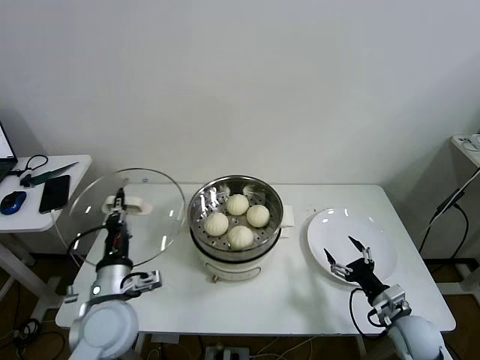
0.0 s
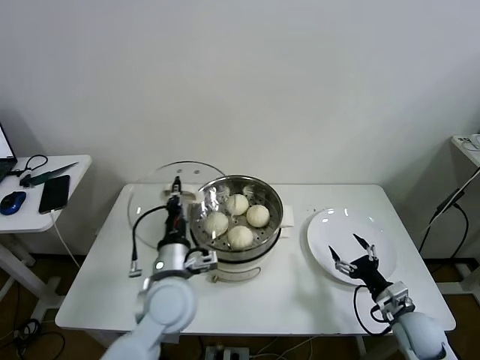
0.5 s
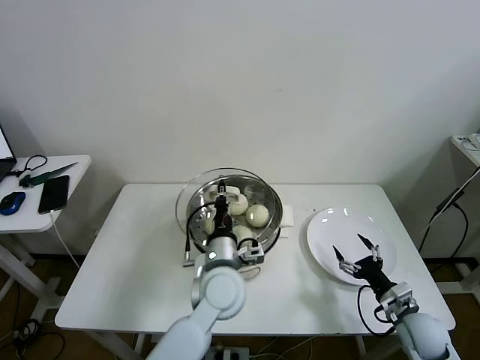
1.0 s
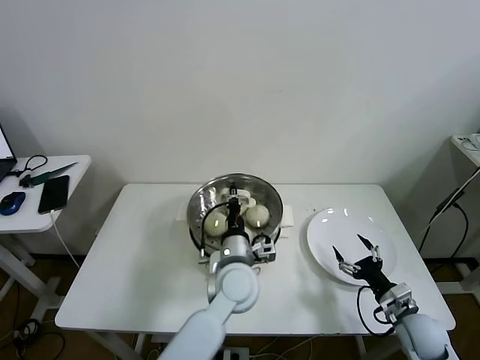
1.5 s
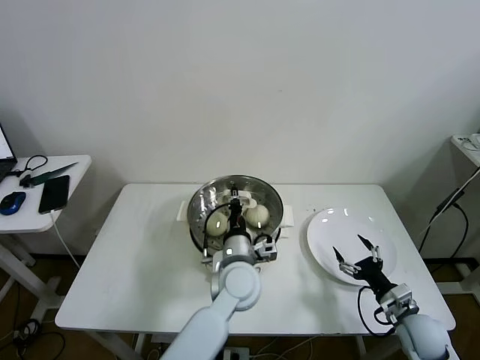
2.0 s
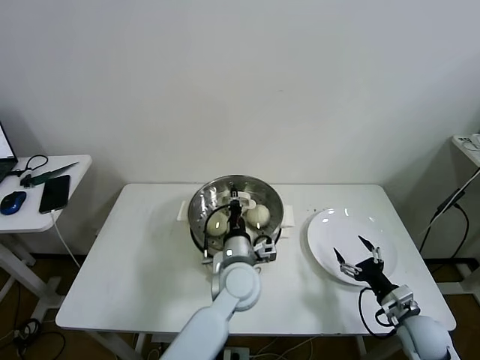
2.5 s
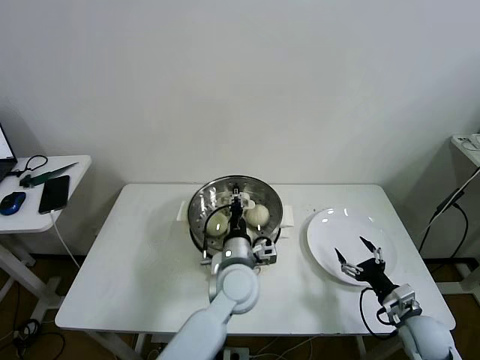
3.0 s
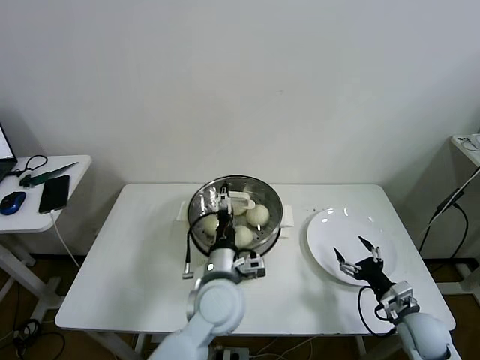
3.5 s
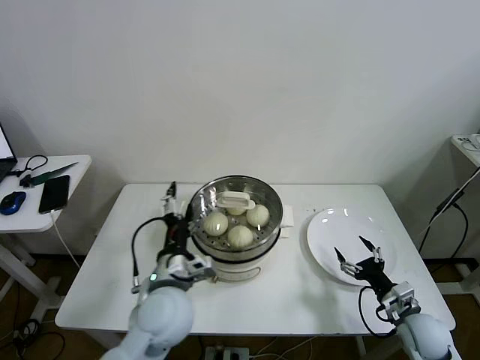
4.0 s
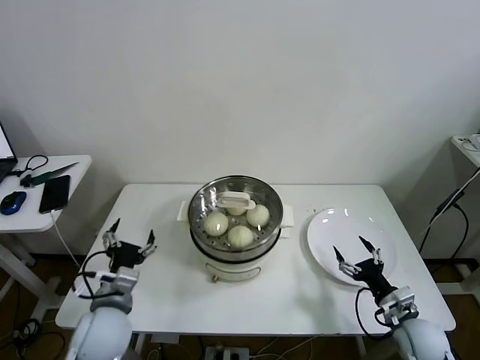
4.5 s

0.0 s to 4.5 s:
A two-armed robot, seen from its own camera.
Task of the whole recording: take steamed baozi put them in steamer then cover it.
Step, 0.0 to 3.0 s: Place the pot lid on the steamer with left gripper.
0.0 to 2.0 s: The left gripper moves to the right, roughly 25 cm.
2.0 to 4.5 s: The left gripper shifts some 25 cm to the left, and opens up.

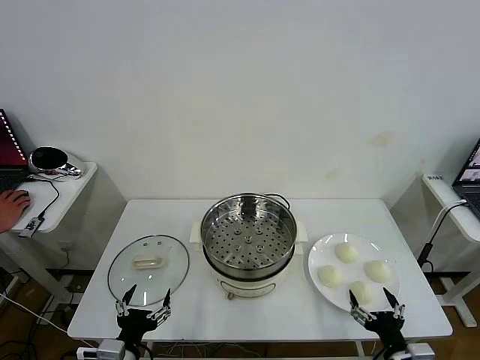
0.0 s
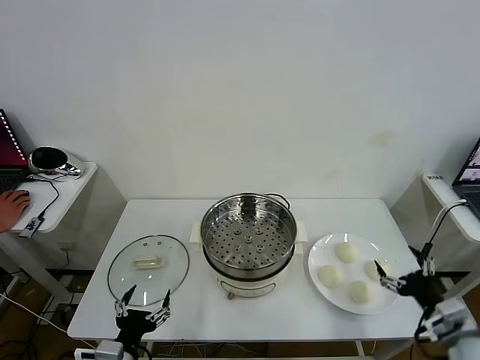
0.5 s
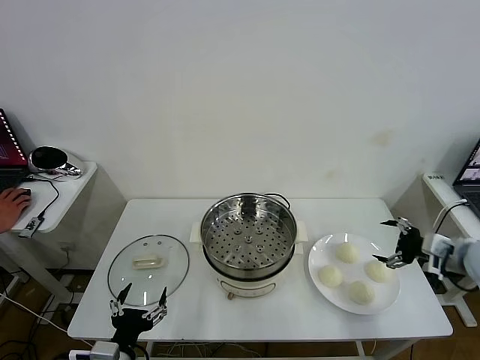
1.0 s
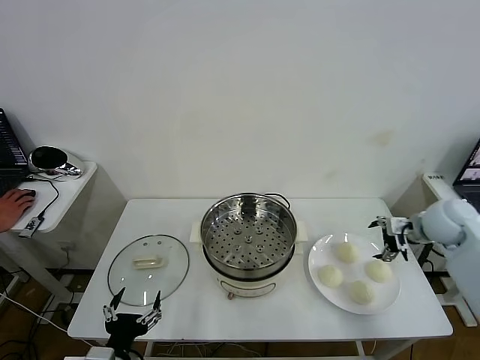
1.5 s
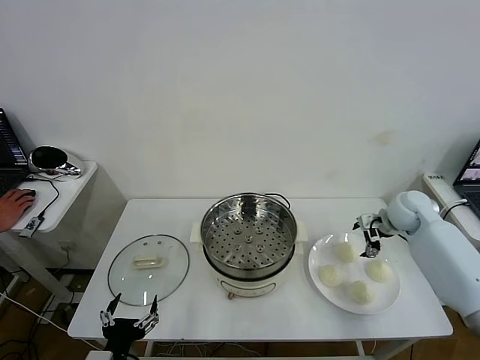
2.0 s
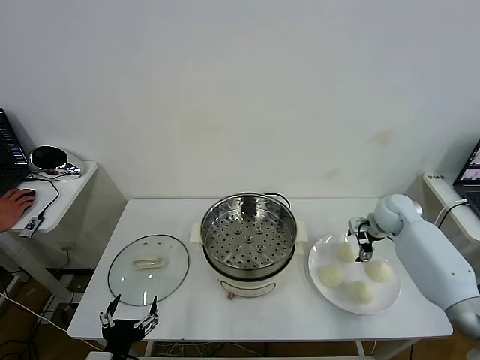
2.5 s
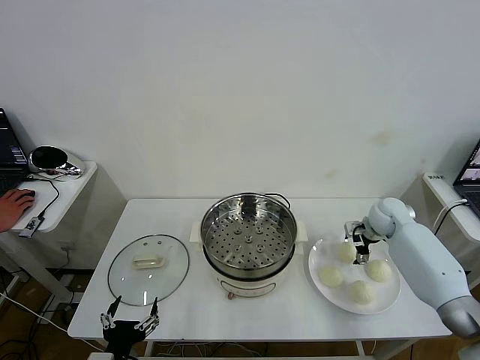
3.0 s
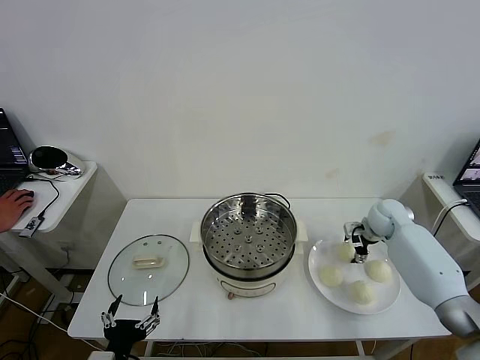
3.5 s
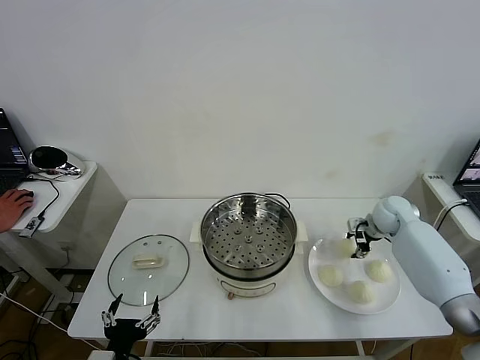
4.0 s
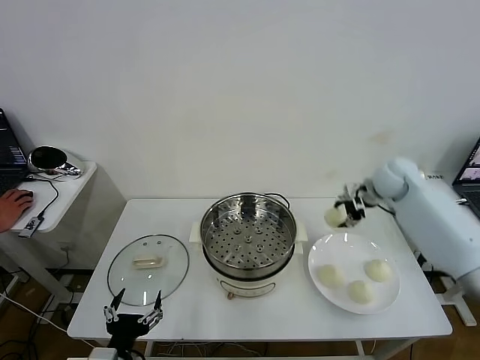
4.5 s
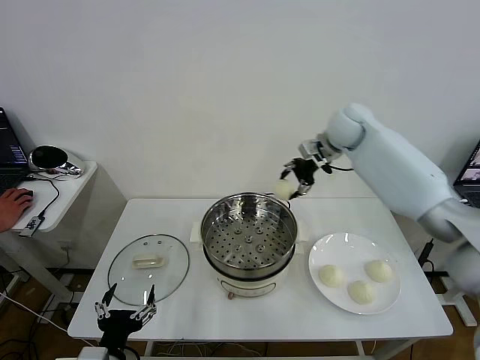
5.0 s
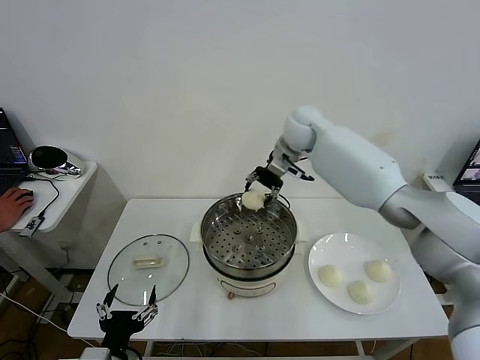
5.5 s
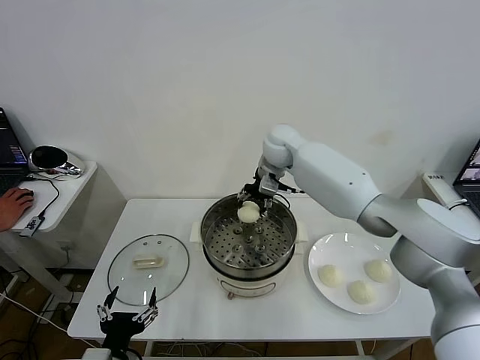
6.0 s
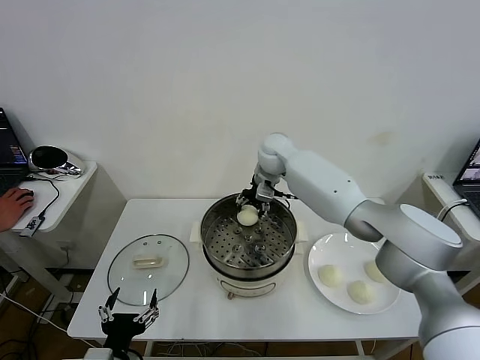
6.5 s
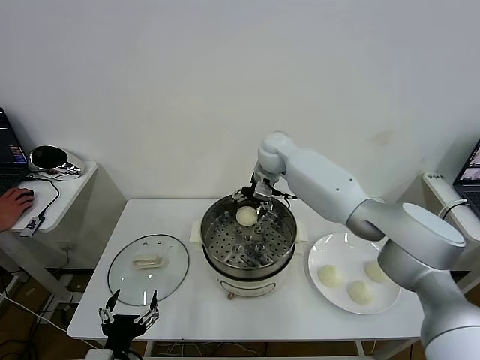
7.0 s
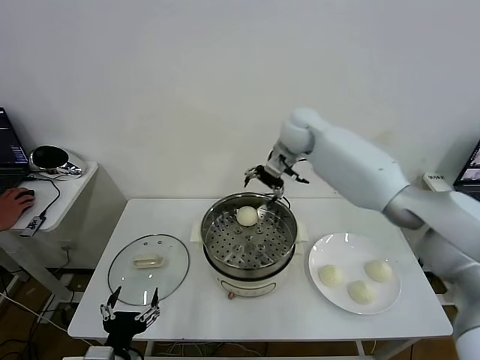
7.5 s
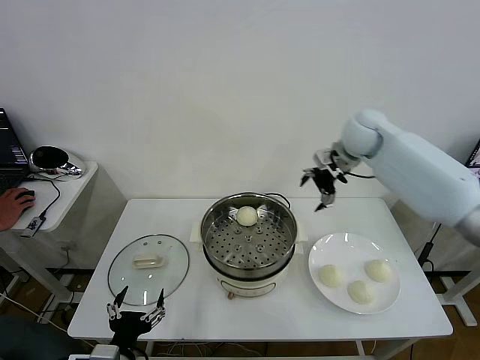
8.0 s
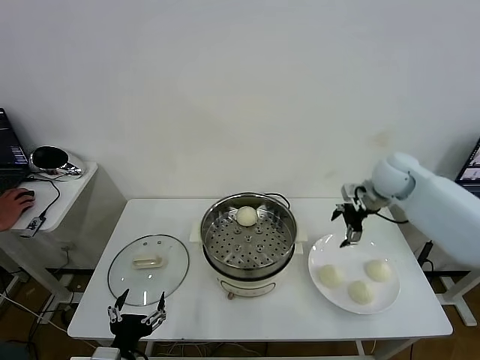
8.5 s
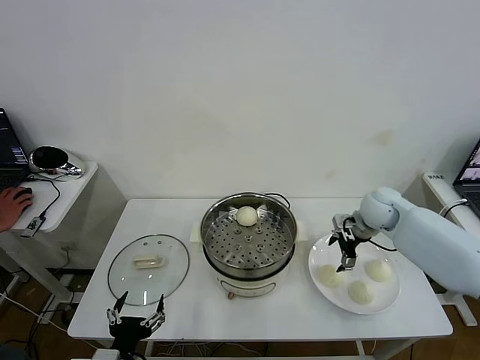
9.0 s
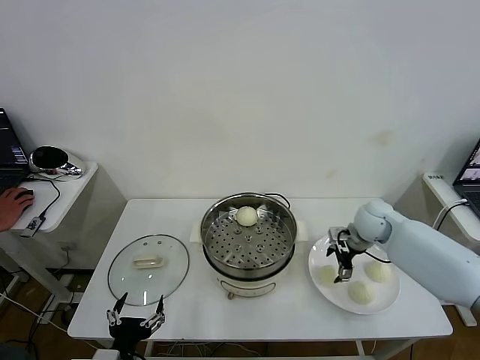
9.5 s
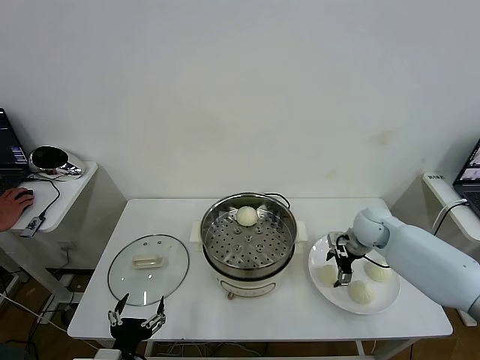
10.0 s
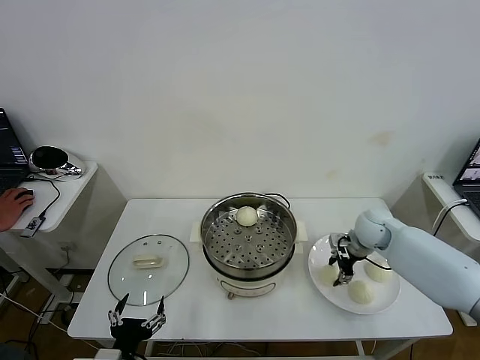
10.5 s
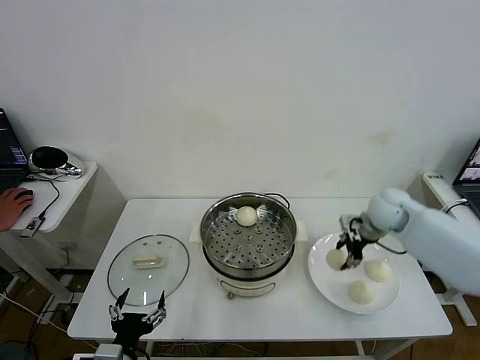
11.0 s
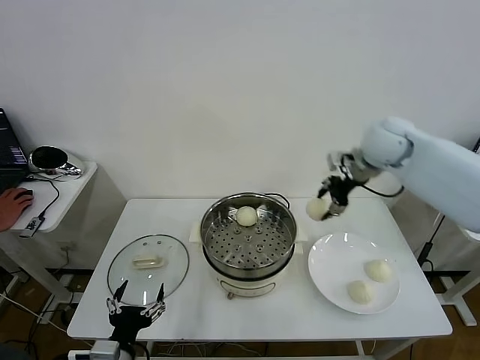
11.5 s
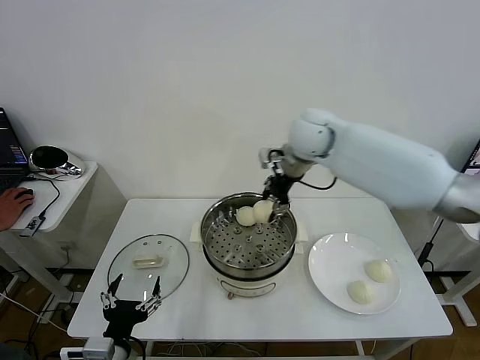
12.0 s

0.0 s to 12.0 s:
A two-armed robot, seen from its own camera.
Task of the whole recording: take steamed baozi put them in steamer then cover it.
Step, 0.0 to 3.5 s: Grasp the baozi in the plate with right gripper.
Step, 4.0 to 6.5 s: Place the baozi on the steamer with right gripper.
Step, 7.0 to 10.5 s: Grasp the baozi in the plate with right gripper.
2.0 to 4.0 s: The right gripper closes up.
4.0 to 6.0 s: The right gripper goes approximately 35 cm to the left and upward.
6.0 to 8.0 s: The right gripper travels to the right by some 20 cm, and opens up.
8.0 to 10.0 s: The right gripper moves downward, some 20 cm.
10.0 to 12.0 s: The right gripper goes about 30 cm to the left and upward, and closes.

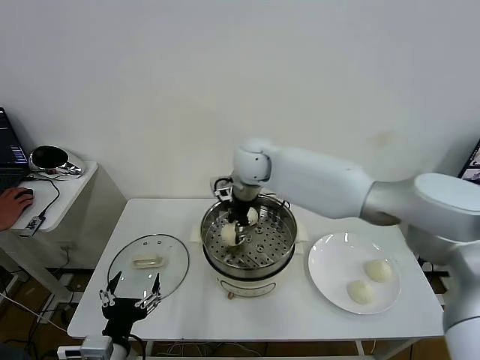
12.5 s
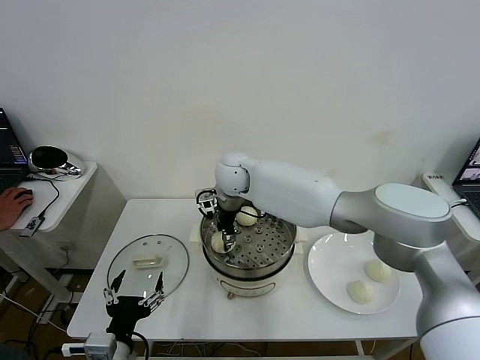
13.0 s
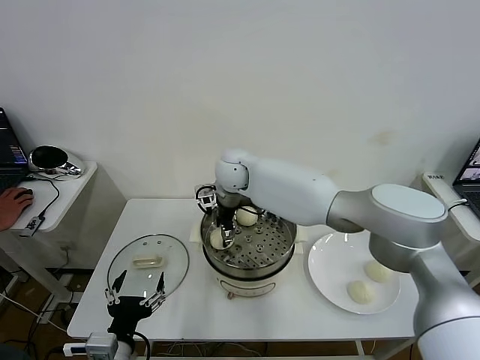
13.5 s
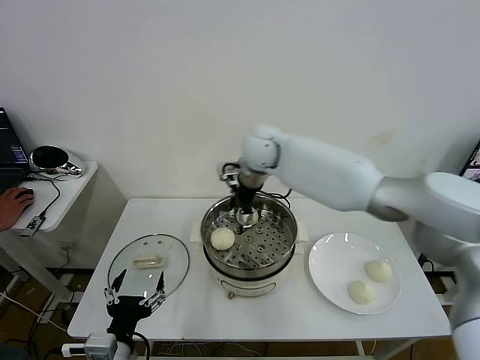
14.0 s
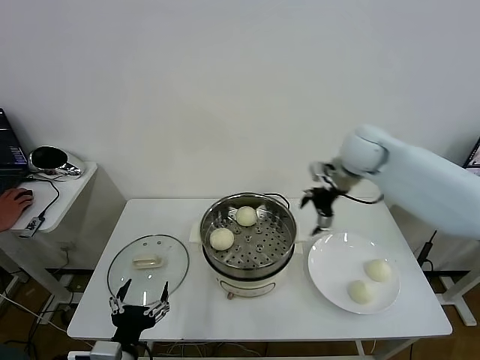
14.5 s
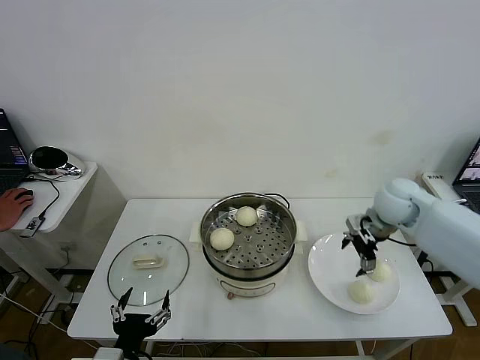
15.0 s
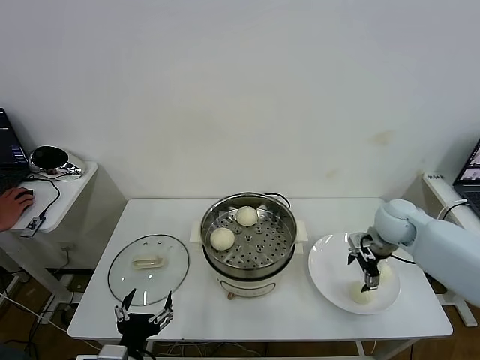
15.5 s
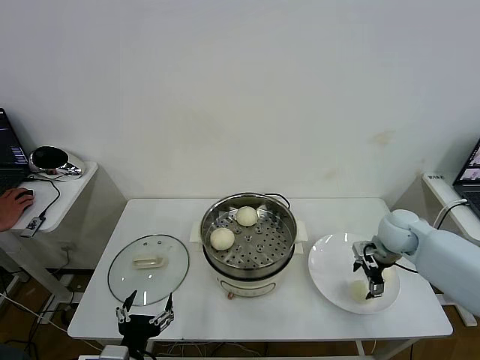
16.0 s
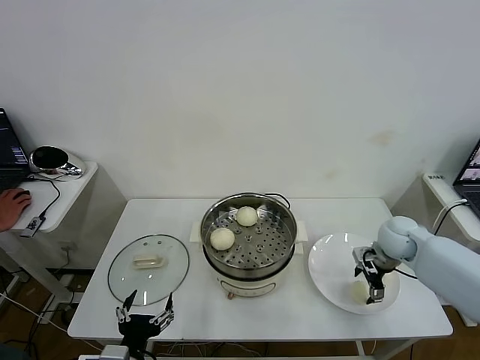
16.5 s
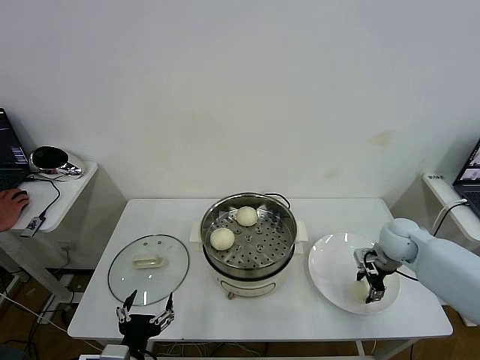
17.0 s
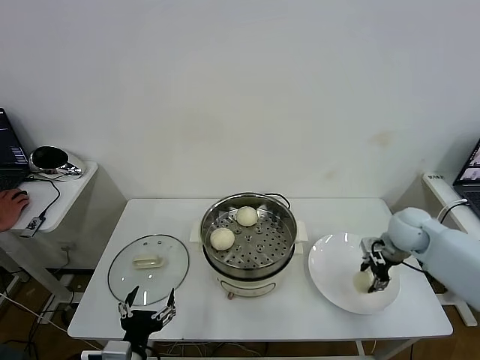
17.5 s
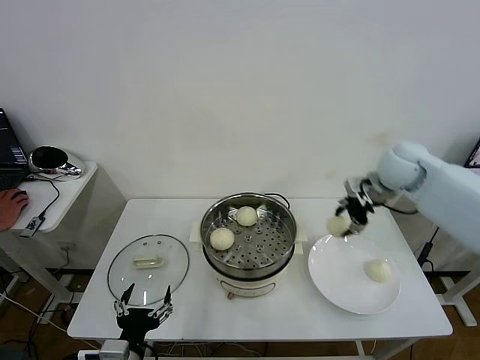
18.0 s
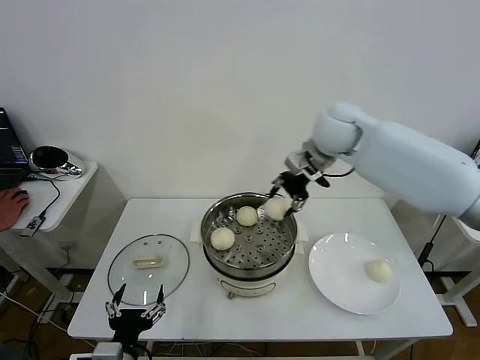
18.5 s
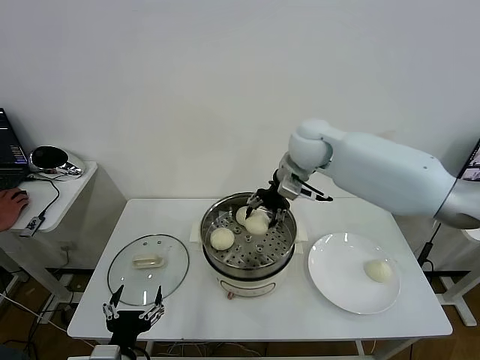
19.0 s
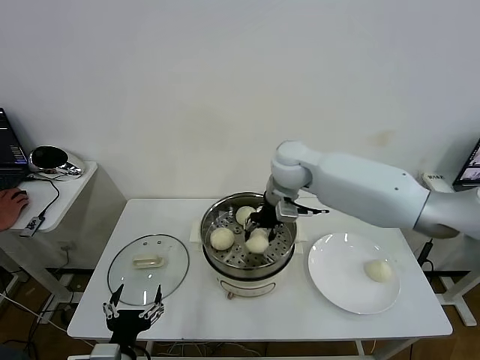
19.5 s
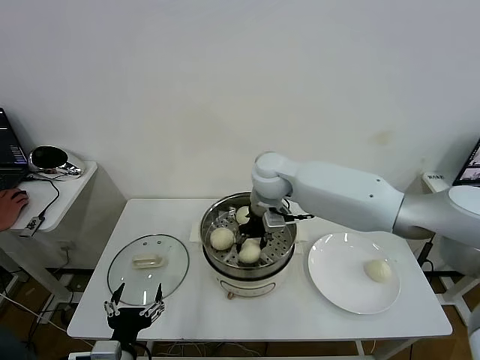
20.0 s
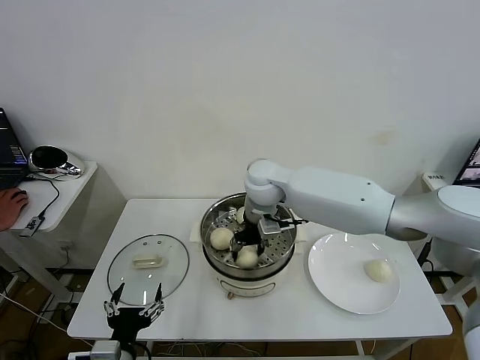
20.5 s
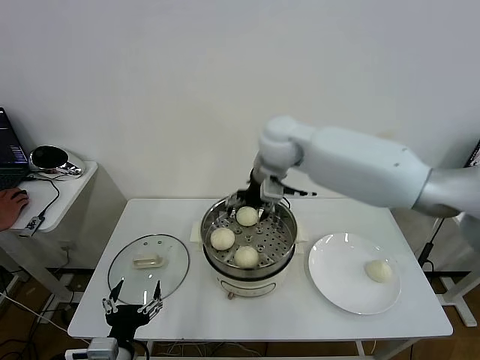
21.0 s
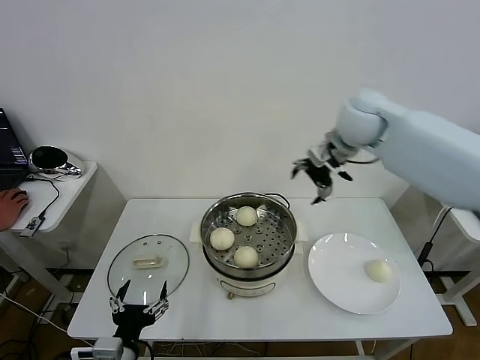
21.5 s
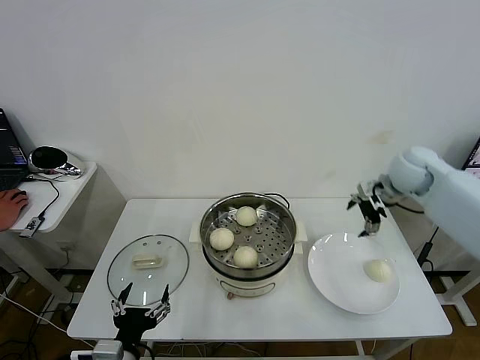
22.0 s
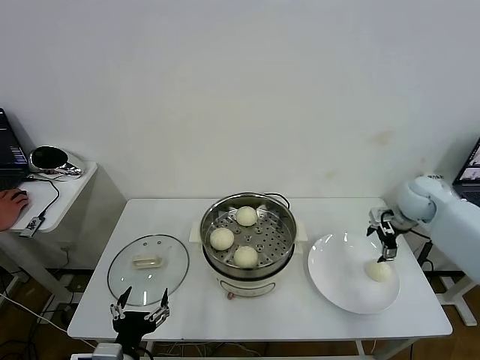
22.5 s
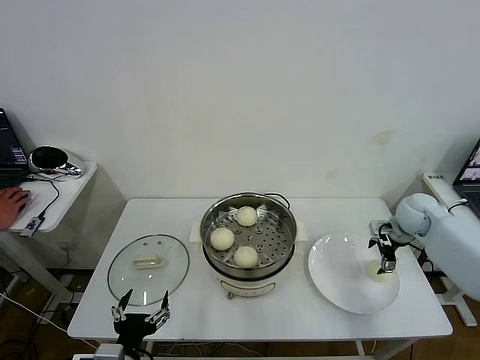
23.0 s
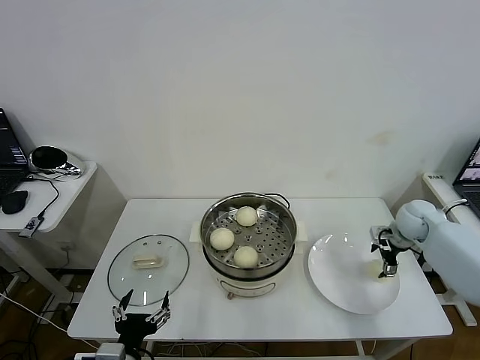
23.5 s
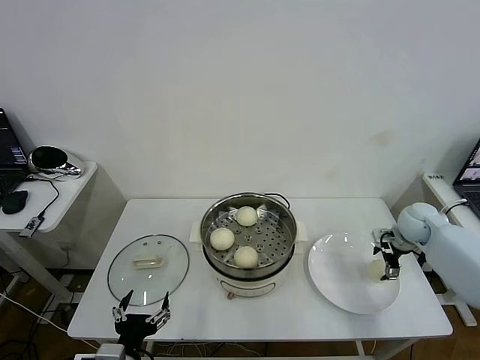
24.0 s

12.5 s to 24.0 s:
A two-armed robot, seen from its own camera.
Task of the whole recording: take steamed baozi put them in steamer then cover it.
Step, 14.0 to 17.0 s: Grasp the baozi in the plate with right gripper.
Step, 17.5 to 20.5 s: Place the baozi on the steamer with right gripper.
12.5 to 14.5 s: The right gripper goes roughly 30 cm to the right, and opens.
14.5 to 16.5 s: The right gripper shifts some 20 cm downward and to the right.
16.5 to 18.5 s: The right gripper travels upward and to the left by approximately 30 cm, and closes.
18.5 to 20.0 s: The right gripper heads to the left and downward, covering approximately 15 cm.
20.0 to 22.0 s: The right gripper is displaced to the right by about 30 cm, and opens its fingers.
22.0 to 24.0 s: The right gripper heads downward and to the right, covering about 15 cm.
